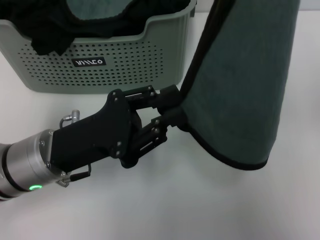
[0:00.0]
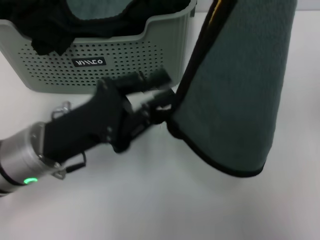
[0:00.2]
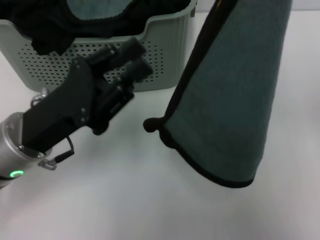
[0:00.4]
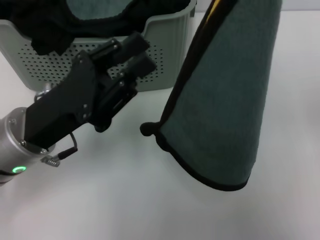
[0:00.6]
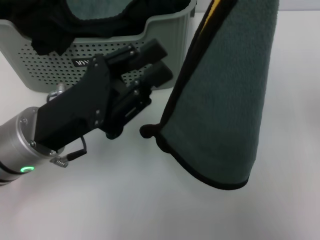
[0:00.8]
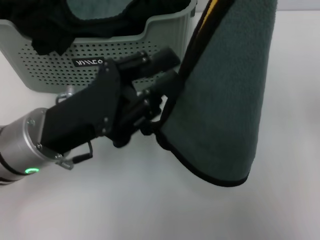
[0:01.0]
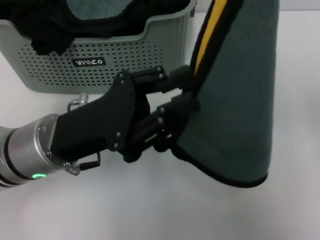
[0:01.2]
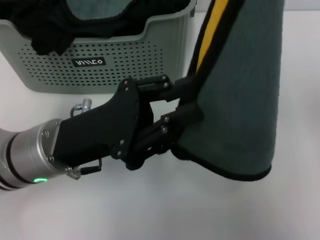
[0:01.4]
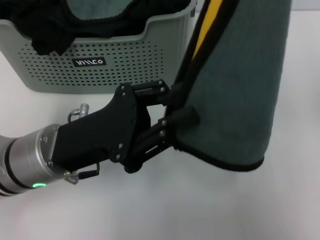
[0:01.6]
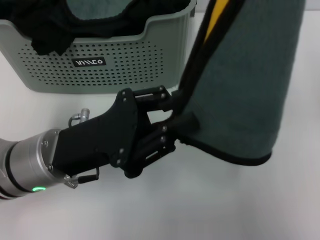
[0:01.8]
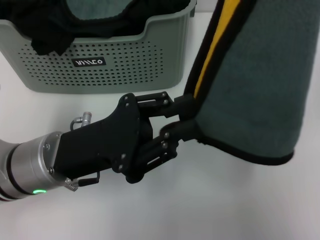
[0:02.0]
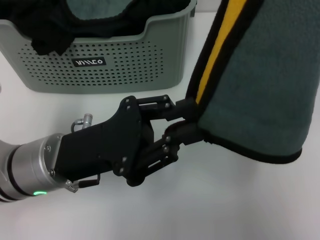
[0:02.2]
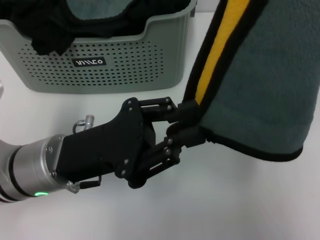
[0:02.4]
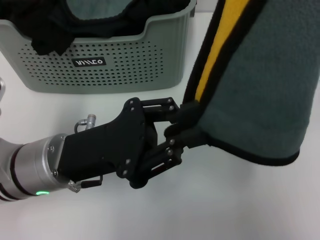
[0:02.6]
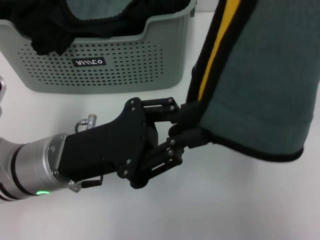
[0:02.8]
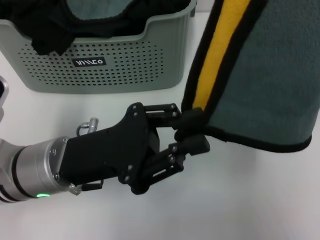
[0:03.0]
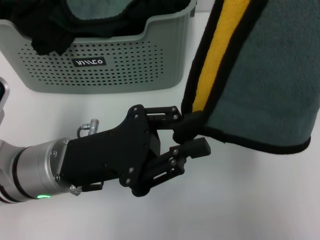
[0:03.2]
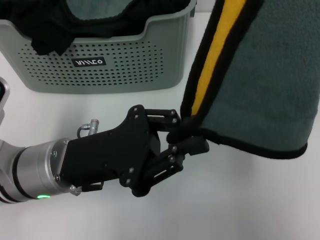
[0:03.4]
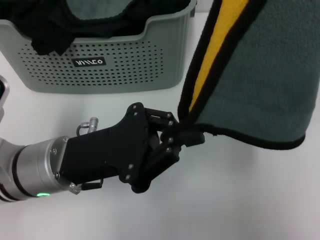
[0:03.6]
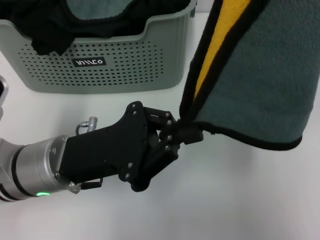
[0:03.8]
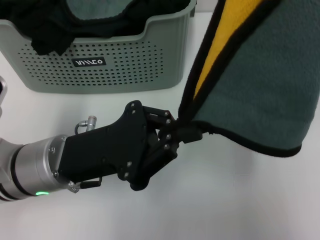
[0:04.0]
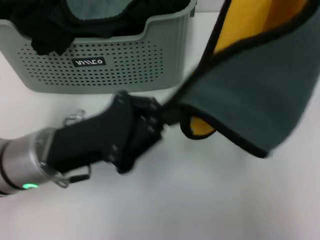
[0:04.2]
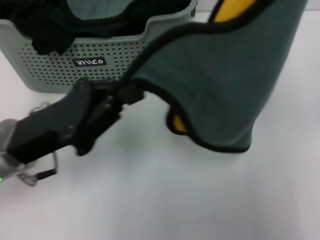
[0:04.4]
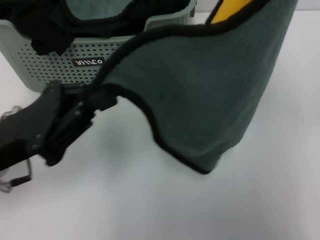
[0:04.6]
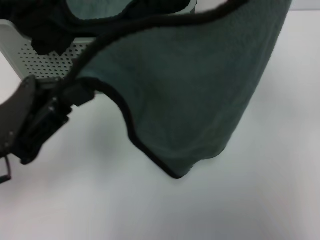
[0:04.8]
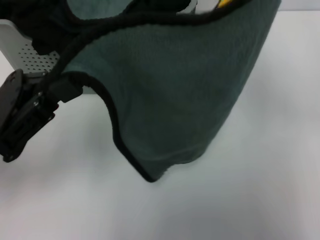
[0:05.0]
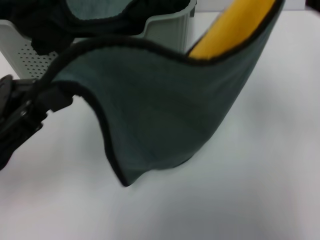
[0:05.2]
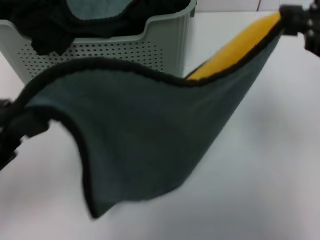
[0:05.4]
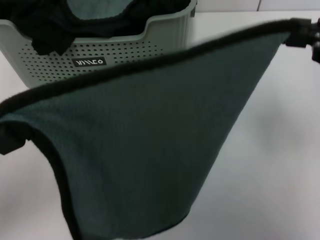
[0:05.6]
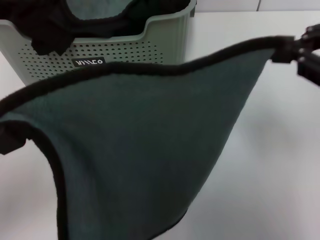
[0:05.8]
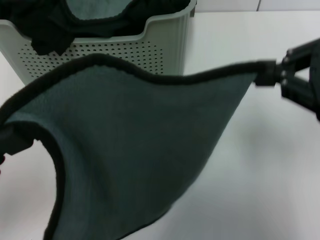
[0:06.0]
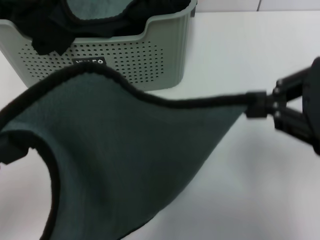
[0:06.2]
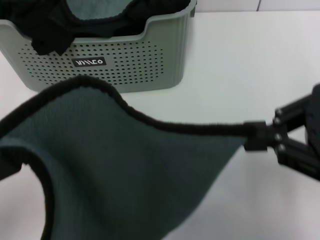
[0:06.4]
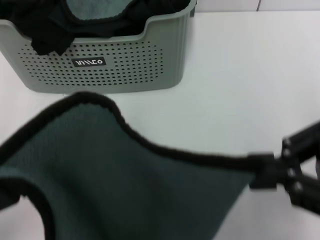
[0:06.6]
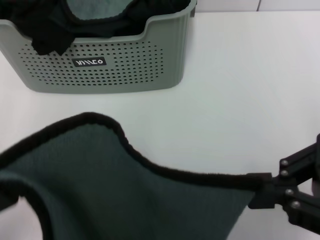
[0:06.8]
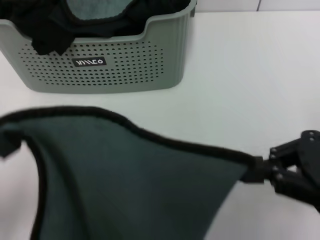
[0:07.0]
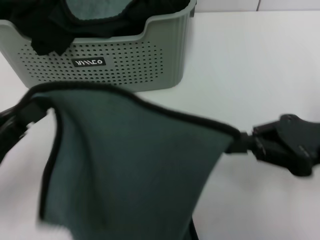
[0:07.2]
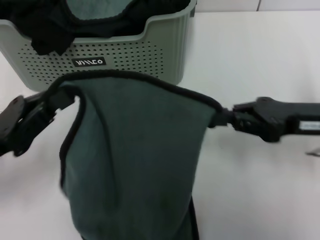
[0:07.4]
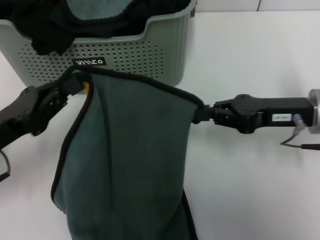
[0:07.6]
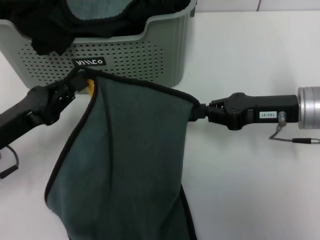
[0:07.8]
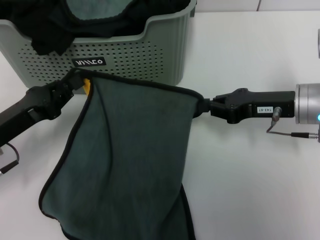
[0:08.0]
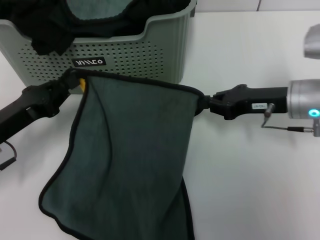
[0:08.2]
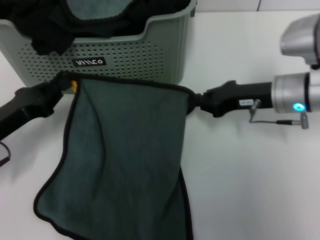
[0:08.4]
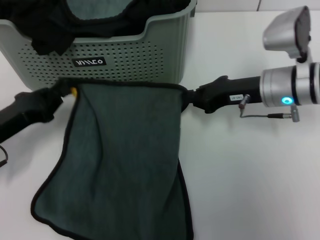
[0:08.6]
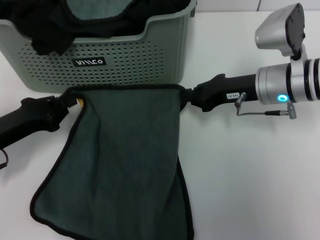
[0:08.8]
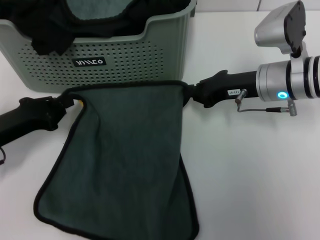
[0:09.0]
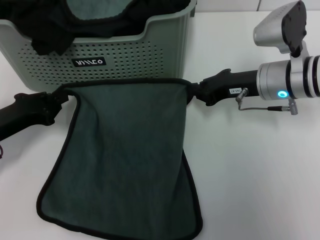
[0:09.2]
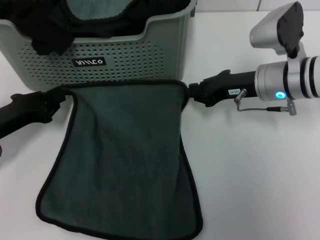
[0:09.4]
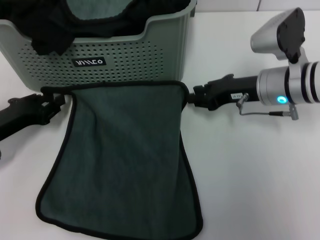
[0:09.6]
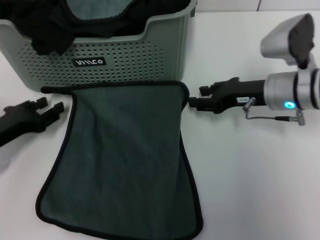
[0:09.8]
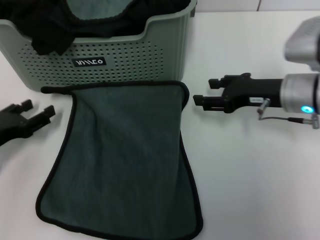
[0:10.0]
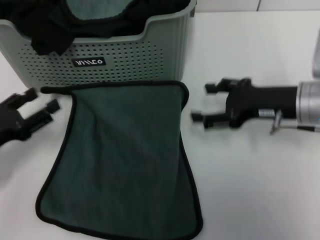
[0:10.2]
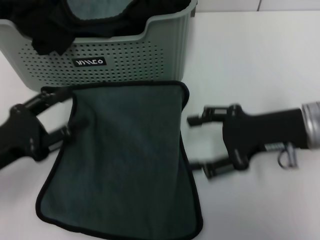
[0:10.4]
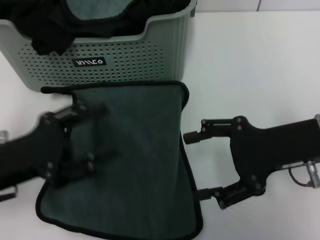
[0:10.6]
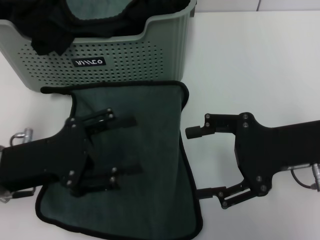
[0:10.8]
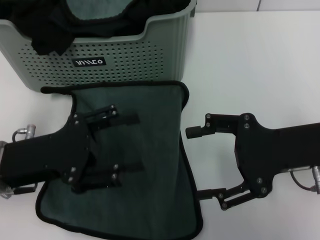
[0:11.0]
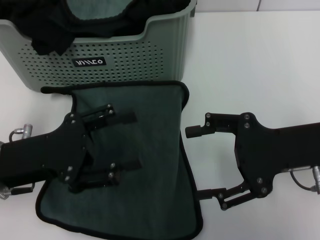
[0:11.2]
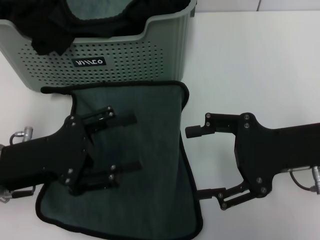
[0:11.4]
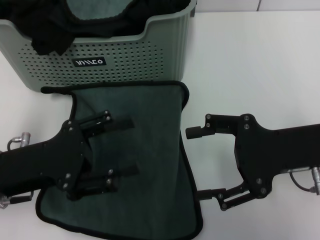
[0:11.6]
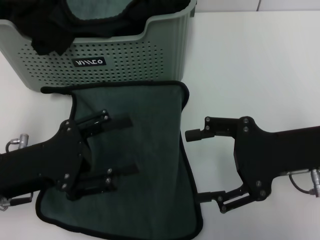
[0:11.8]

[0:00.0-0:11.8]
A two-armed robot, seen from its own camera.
Task of the whole recording: pick up the towel from the storage box and lay it flat on the table.
Step, 0:00.0 to 0:09.6: Spread the towel flat with the right gripper.
0:00.0 to 0:01.4: The grippers move only a little.
0:04.4 to 0:06.0: The left gripper goes approximately 15 cm backward, to the left and upward. Meanwhile the right gripper moves downward, roughly 5 cm.
0:06.0 to 0:07.4: The left gripper goes roughly 10 cm downward and forward. The right gripper travels downward and forward by some 15 cm.
0:07.4 to 0:08.8: The left gripper is displaced forward by some 5 cm. Meanwhile the right gripper is displaced forward and to the left by about 10 cm.
0:08.8 to 0:10.4: The two grippers go about 5 cm backward. The left gripper opens, while the right gripper opens.
0:10.4 to 0:11.8: The left gripper is displaced to the right by about 5 cm.

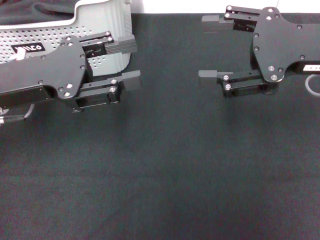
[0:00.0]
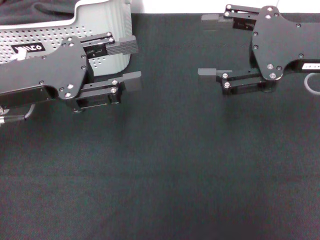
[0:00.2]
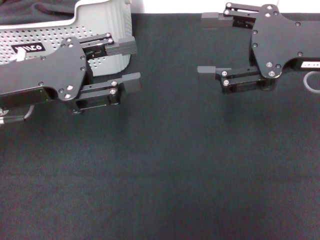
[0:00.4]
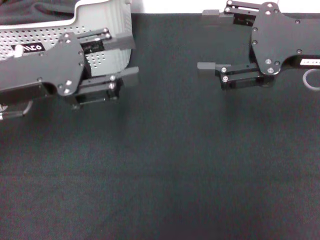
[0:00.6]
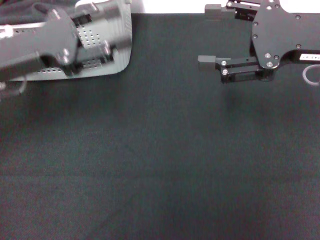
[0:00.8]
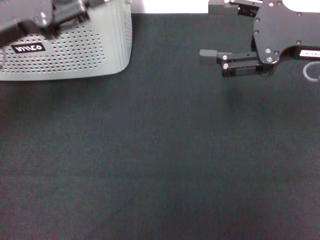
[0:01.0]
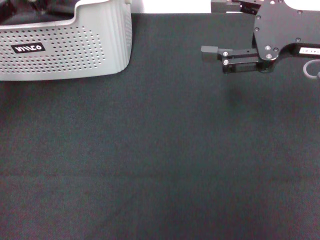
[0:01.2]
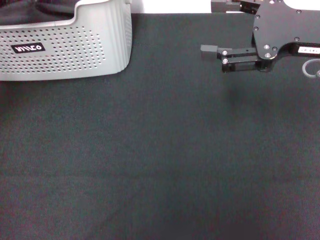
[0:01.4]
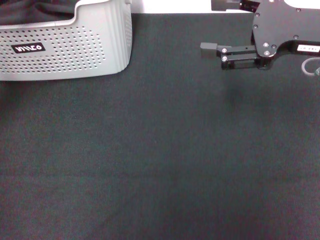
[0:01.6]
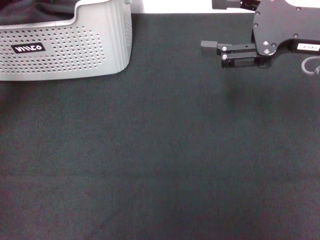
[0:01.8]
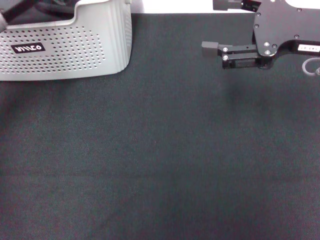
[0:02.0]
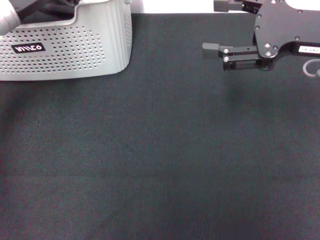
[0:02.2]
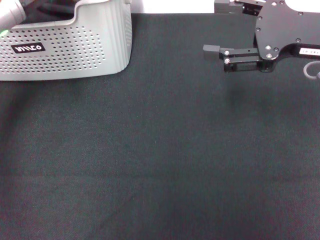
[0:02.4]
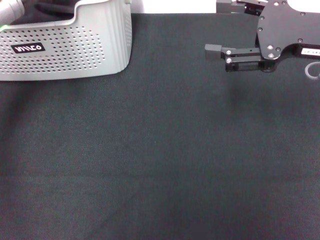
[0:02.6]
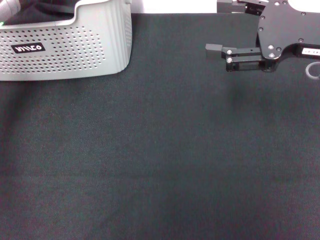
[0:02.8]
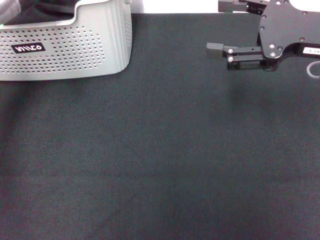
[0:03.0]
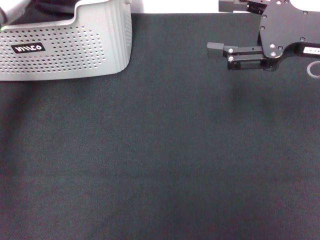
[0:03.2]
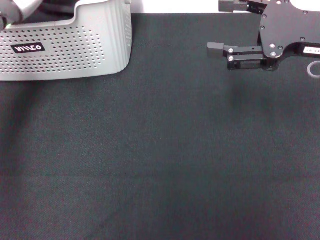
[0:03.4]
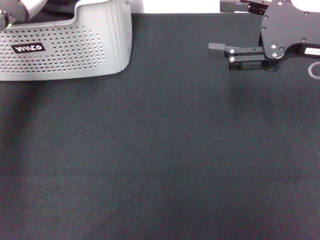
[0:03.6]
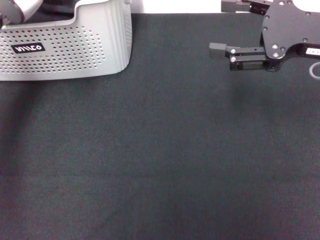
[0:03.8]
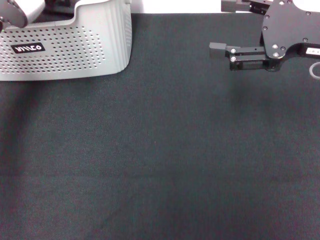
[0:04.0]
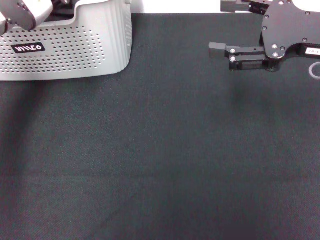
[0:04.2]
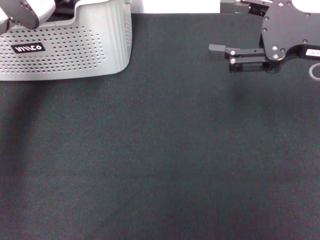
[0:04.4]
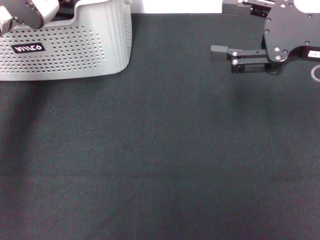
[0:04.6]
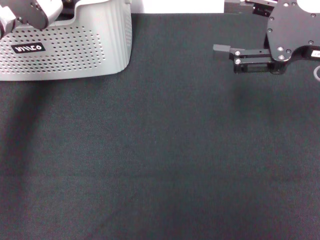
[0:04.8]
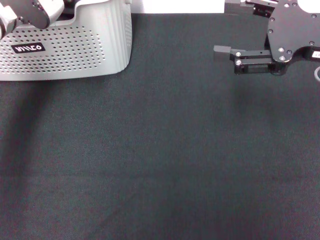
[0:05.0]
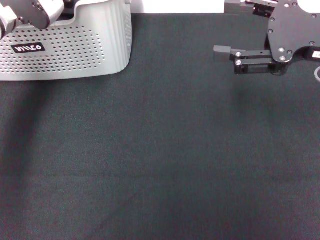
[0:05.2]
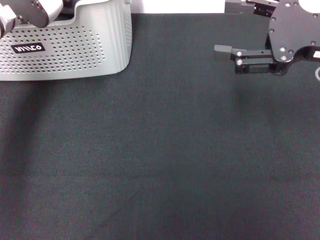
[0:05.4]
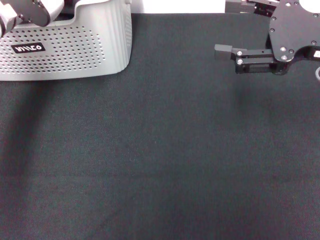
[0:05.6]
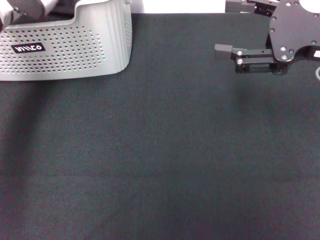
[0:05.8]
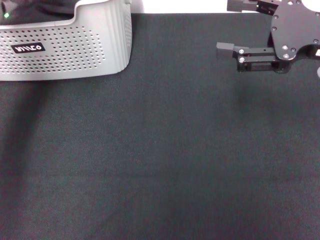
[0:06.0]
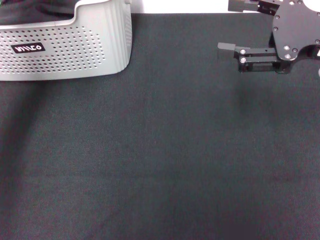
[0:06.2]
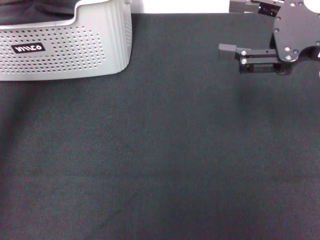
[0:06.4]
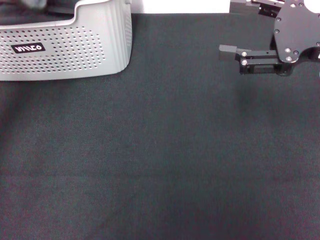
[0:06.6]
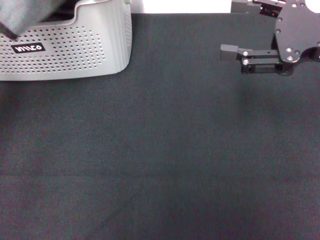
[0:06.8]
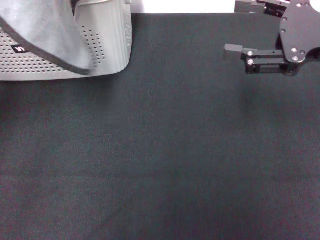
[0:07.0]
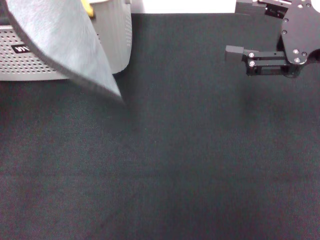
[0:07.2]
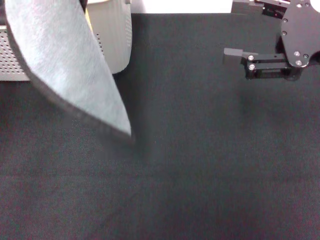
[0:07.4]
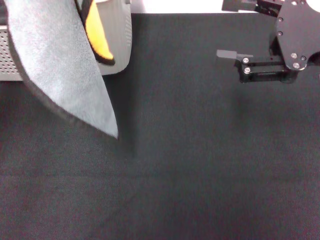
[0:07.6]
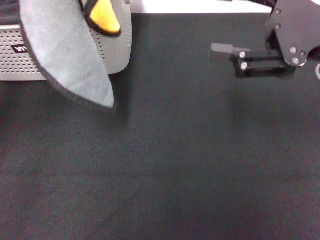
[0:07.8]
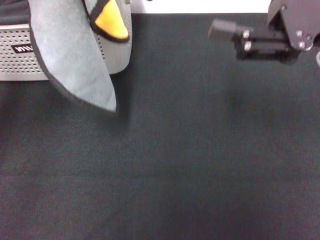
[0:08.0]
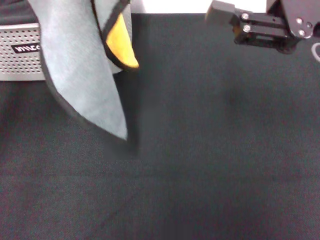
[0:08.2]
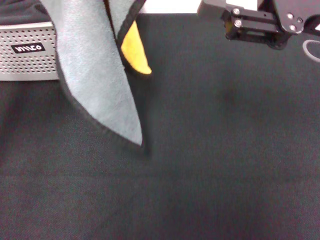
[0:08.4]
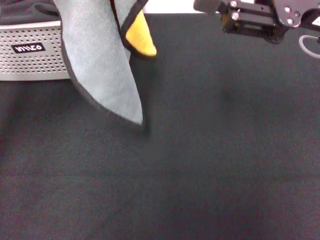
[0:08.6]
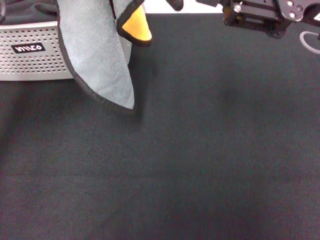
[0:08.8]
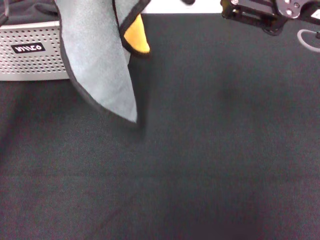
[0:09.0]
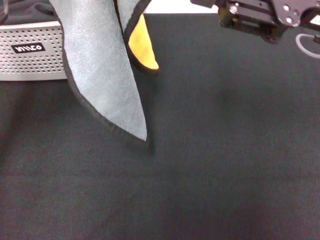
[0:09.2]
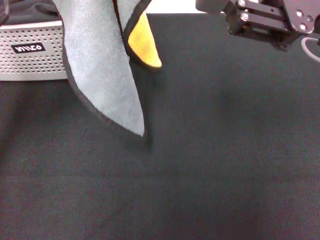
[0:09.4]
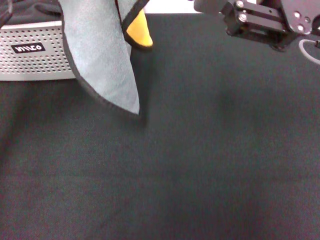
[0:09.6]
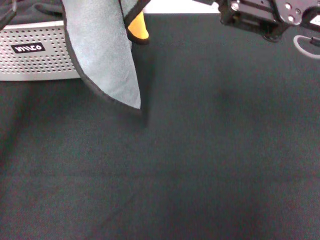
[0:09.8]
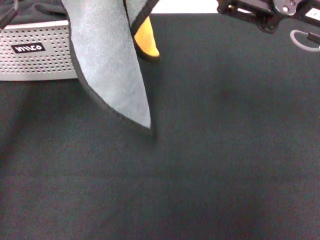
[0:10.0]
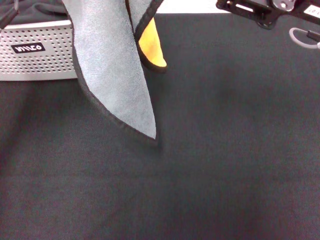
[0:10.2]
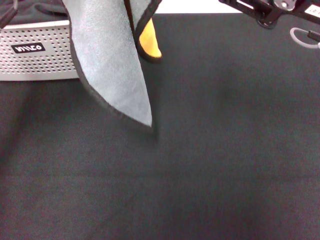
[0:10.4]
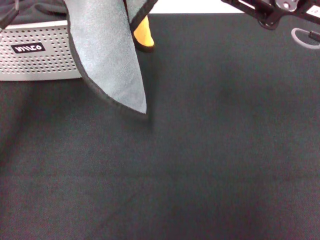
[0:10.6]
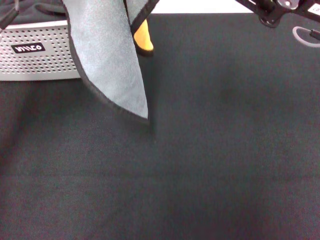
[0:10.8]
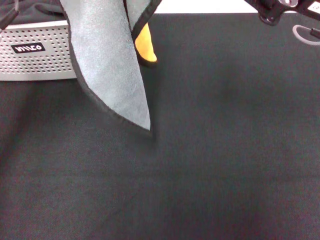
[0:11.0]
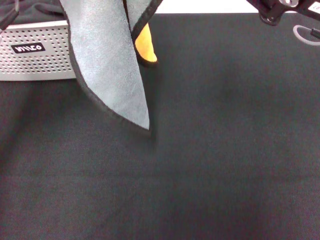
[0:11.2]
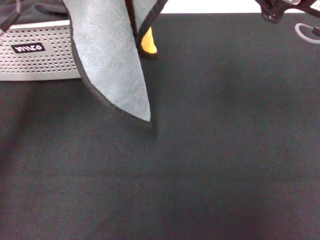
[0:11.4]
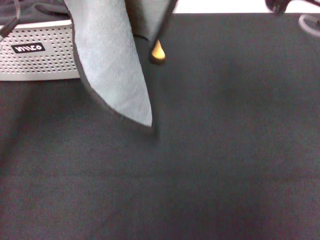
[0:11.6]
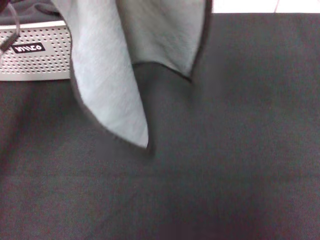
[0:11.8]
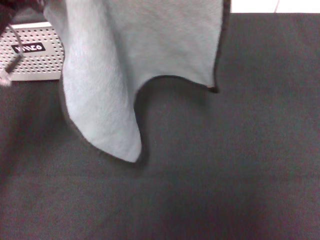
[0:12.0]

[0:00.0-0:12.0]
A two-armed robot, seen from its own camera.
Task of the whole recording: pick up the towel from the storage box and lay it flat on the black tablecloth.
Step, 0:00.0 to 0:05.6: Pick up a towel with the left gripper.
Step, 0:06.0 to 0:11.8: Spread the towel flat with the left gripper.
0:00.0 to 0:01.6: The left gripper goes some 5 cm forward.
0:01.6 to 0:03.0: The left gripper changes place by some 5 cm.
0:04.4 to 0:06.0: The left gripper closes up.
0:06.0 to 0:07.6: The left gripper travels backward and upward by some 15 cm.
0:07.6 to 0:09.0: The left gripper goes some 5 cm downward.
0:09.0 to 0:10.4: The grippers stay close to where they were, moving slightly.
0:10.4 to 0:12.0: The right gripper shifts about 5 cm upward, and closes its fingers. The left gripper changes place by roughly 5 cm.
